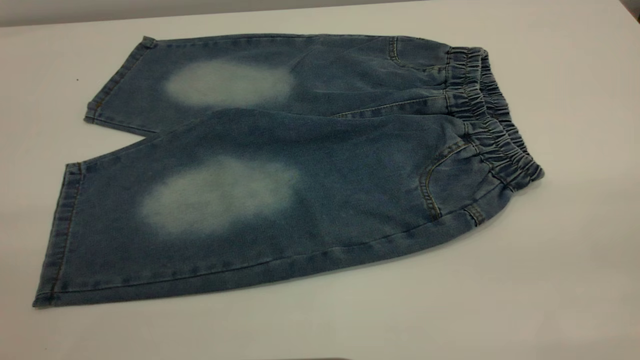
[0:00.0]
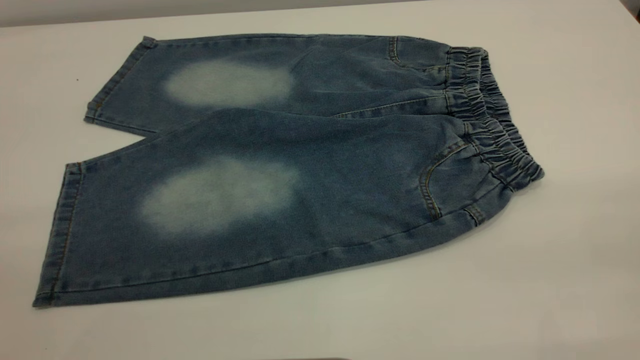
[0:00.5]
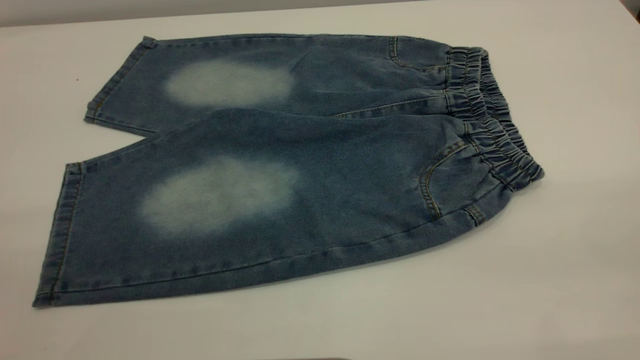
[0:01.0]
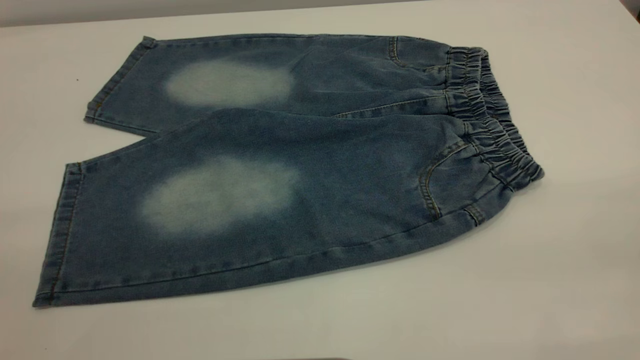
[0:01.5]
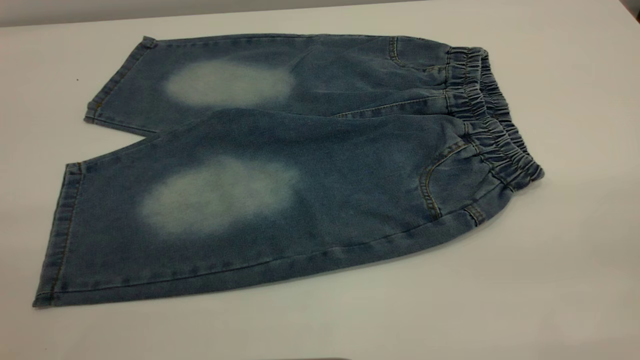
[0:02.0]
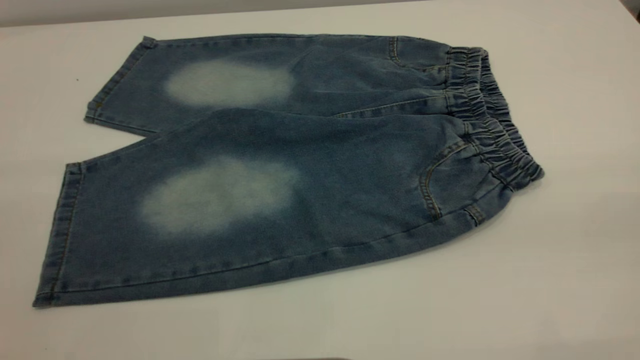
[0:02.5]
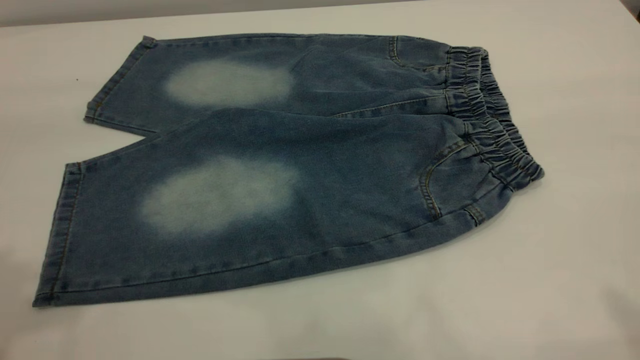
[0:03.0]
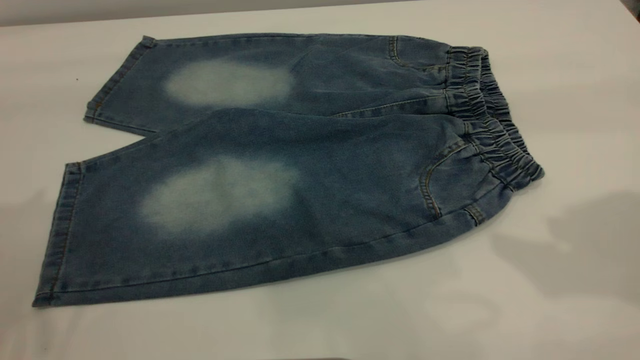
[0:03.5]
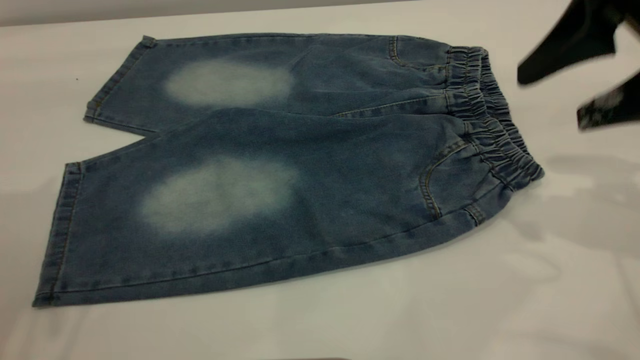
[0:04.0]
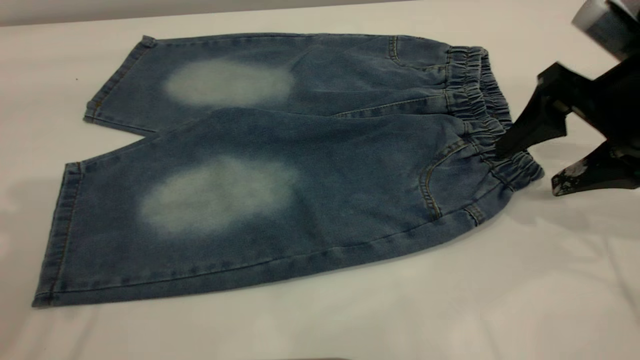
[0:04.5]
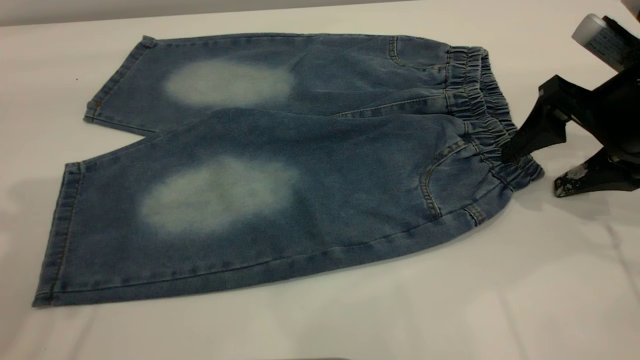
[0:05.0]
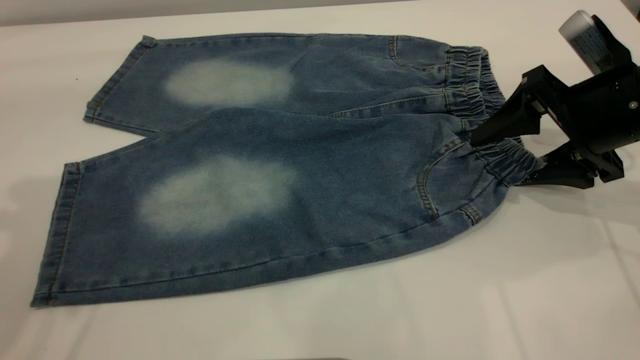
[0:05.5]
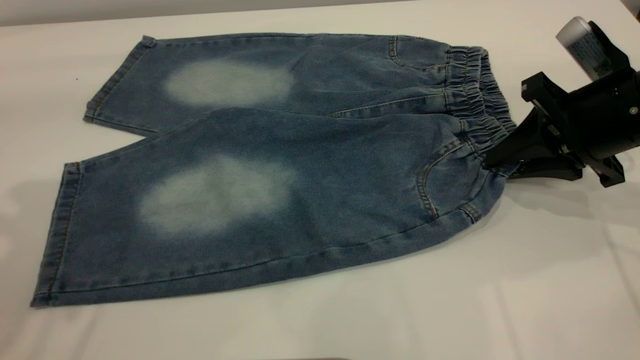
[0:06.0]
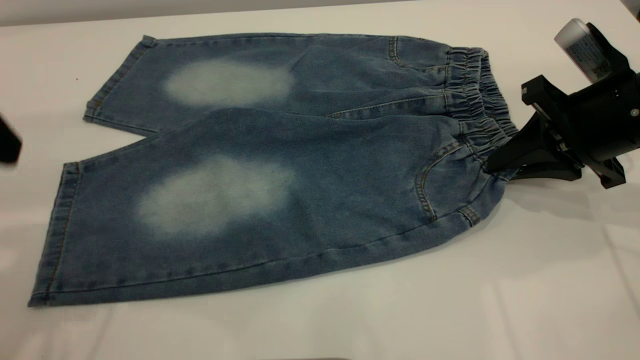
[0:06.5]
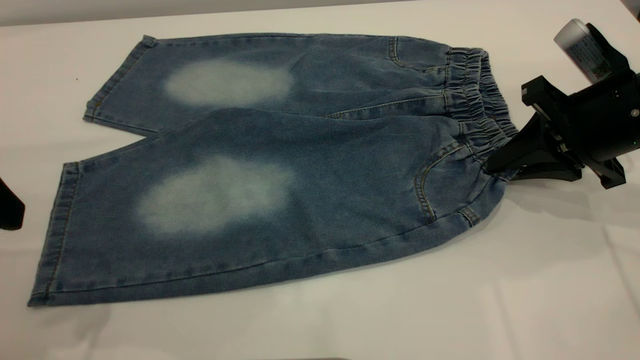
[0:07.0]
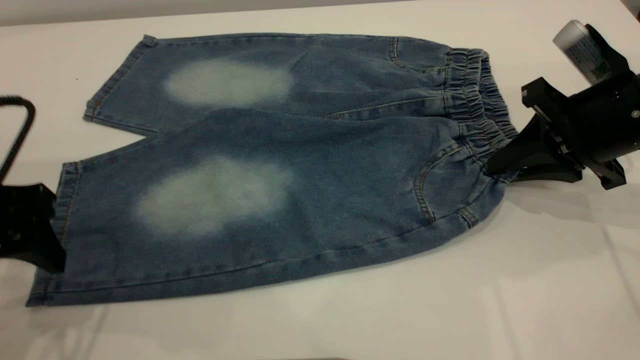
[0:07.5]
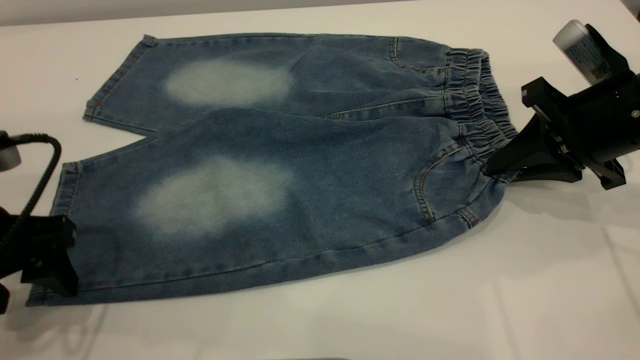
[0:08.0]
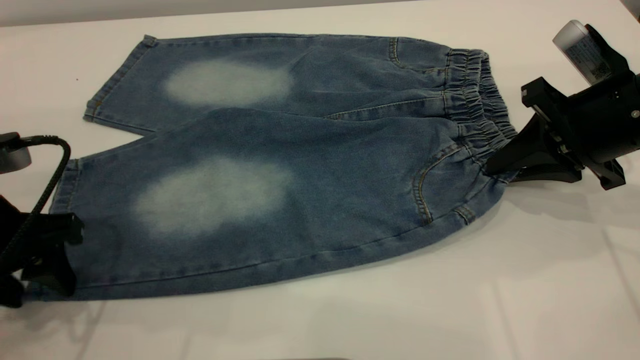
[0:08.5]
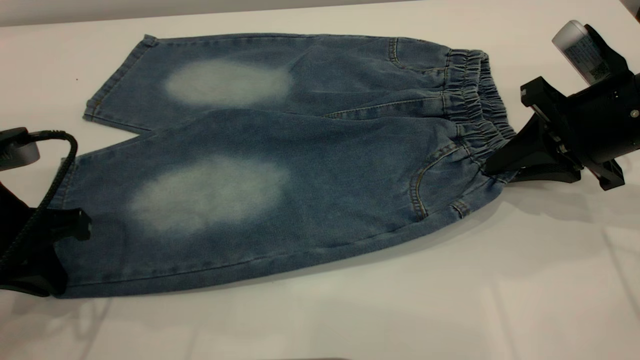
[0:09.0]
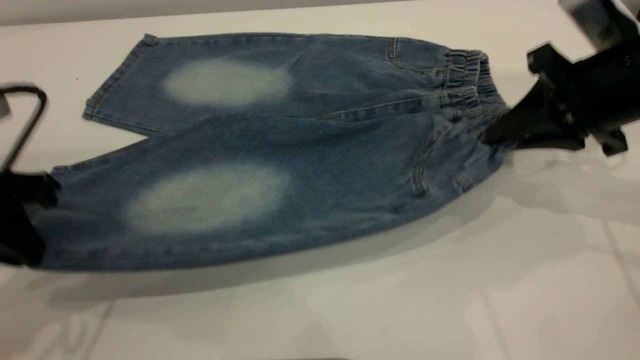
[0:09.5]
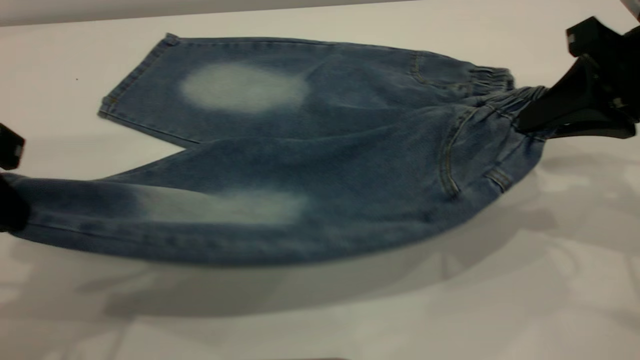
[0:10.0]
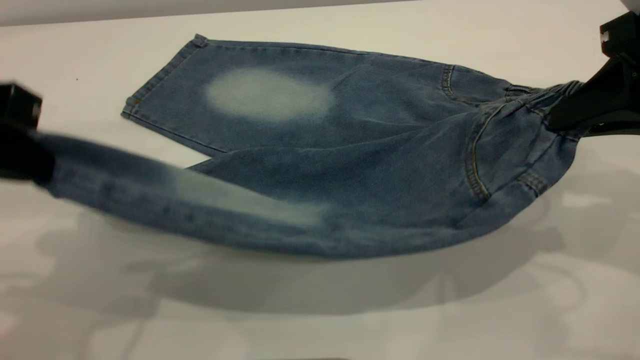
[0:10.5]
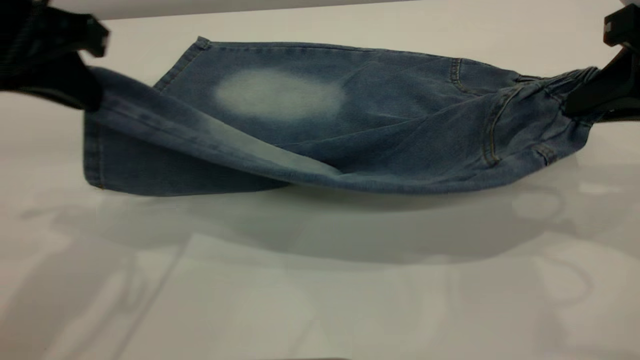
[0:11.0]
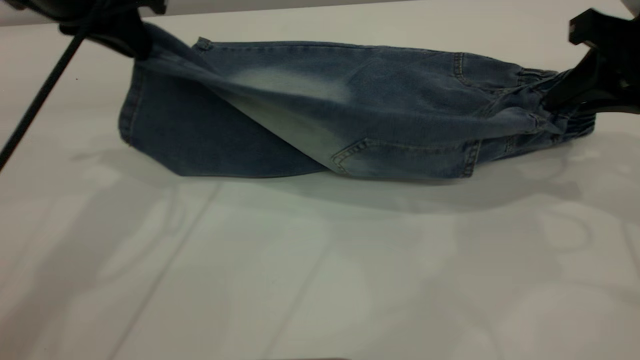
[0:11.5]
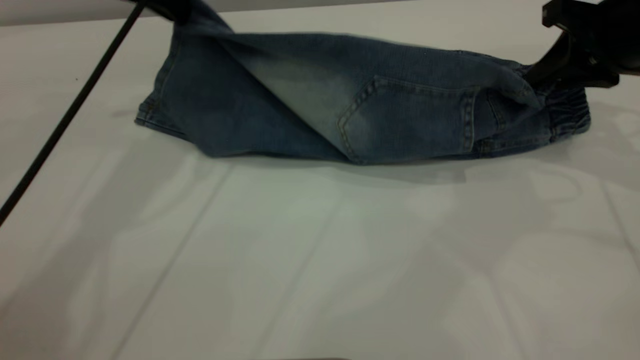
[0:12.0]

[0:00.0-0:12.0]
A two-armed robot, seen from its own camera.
0:00.0 to 0:02.0: The two grippers keep their place.
0:02.0 to 0:04.0: The right gripper heads forward and downward, covering approximately 30 cm.
0:04.0 to 0:06.0: The right gripper travels downward by about 10 cm, and closes.
0:06.0 to 0:08.0: The left gripper heads downward, covering some 20 cm.
0:08.0 to 0:10.0: The two grippers go approximately 10 cm upward. The left gripper closes.
0:10.0 to 0:12.0: The left gripper travels forward by some 25 cm. The right gripper shifts some 10 cm forward.

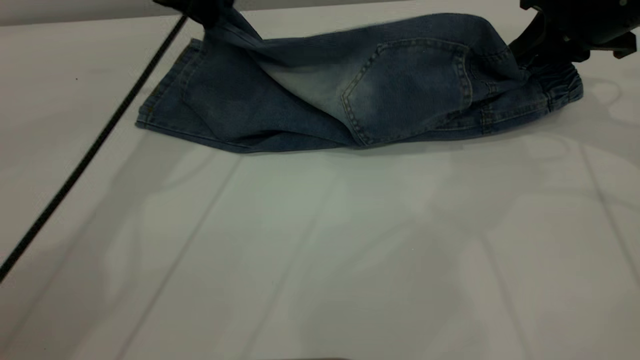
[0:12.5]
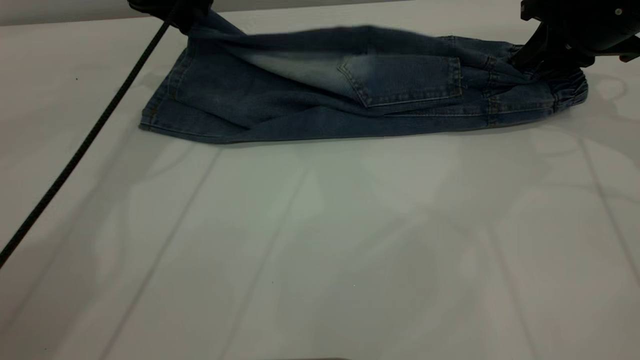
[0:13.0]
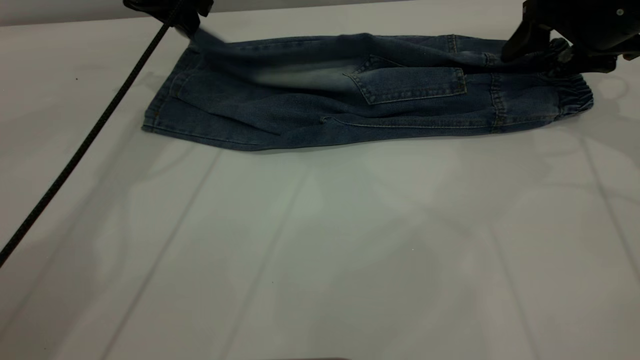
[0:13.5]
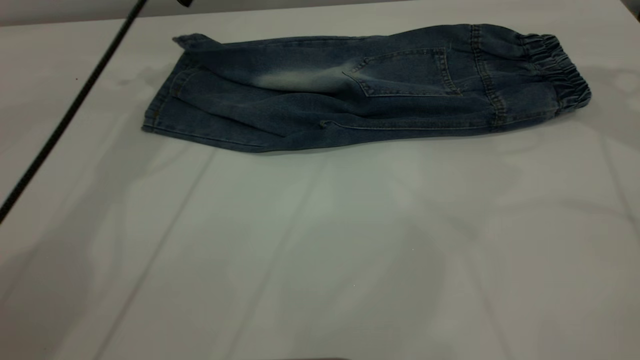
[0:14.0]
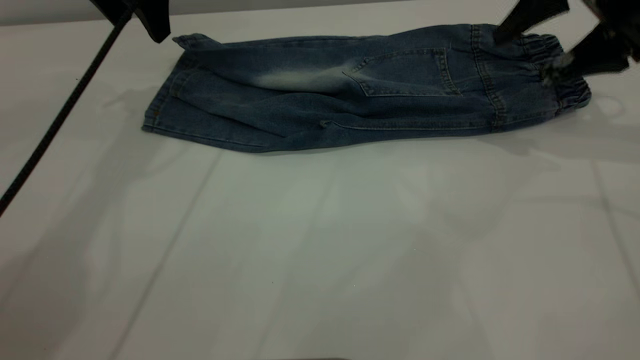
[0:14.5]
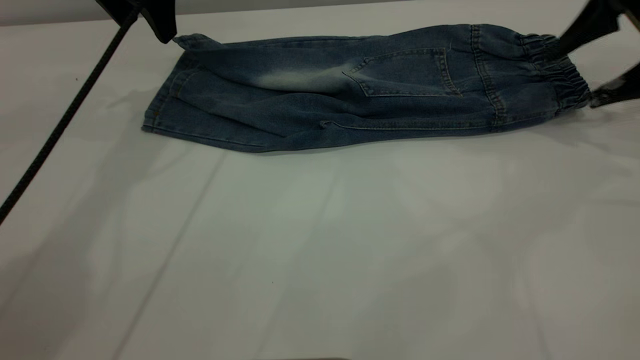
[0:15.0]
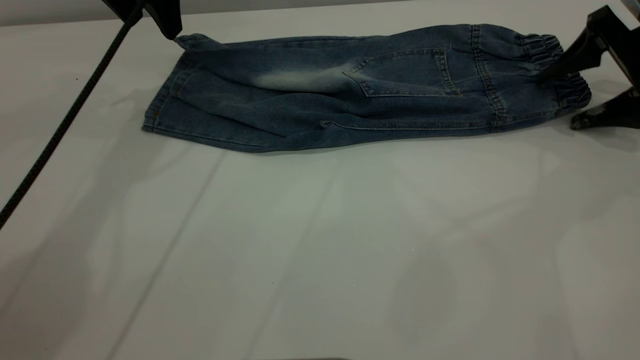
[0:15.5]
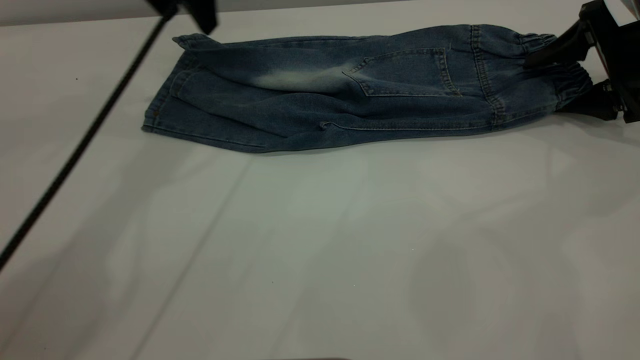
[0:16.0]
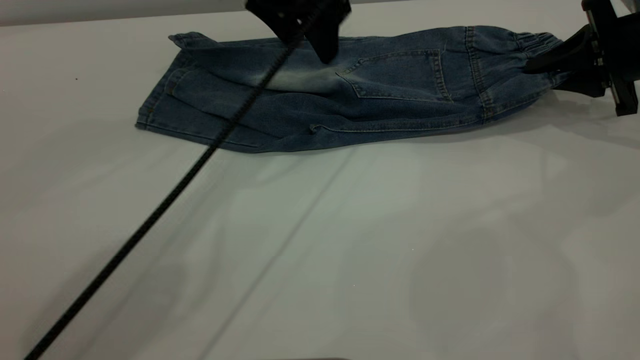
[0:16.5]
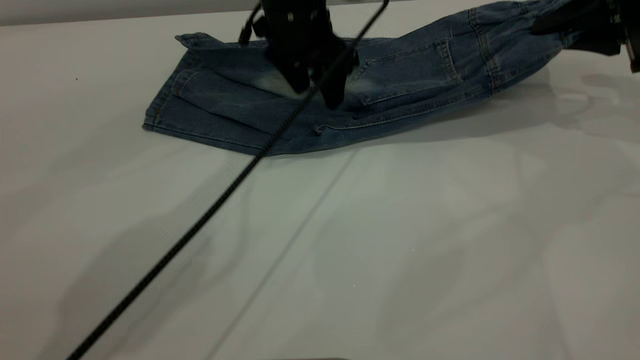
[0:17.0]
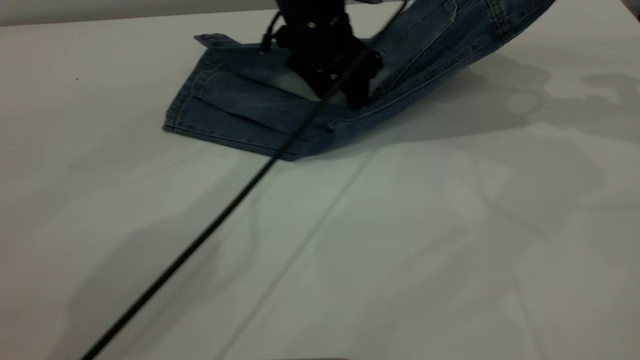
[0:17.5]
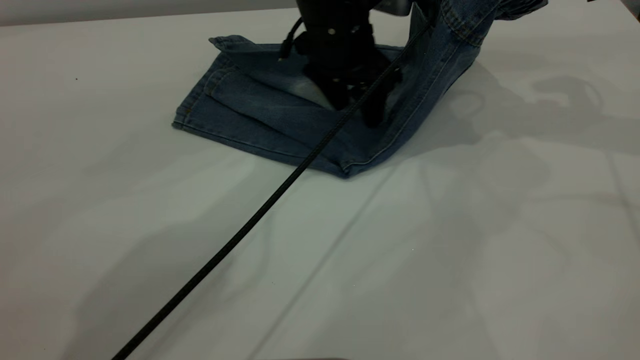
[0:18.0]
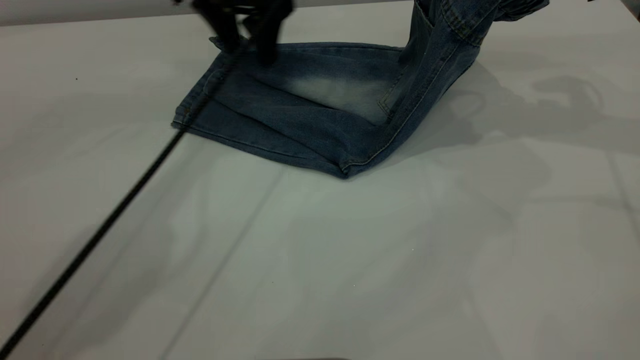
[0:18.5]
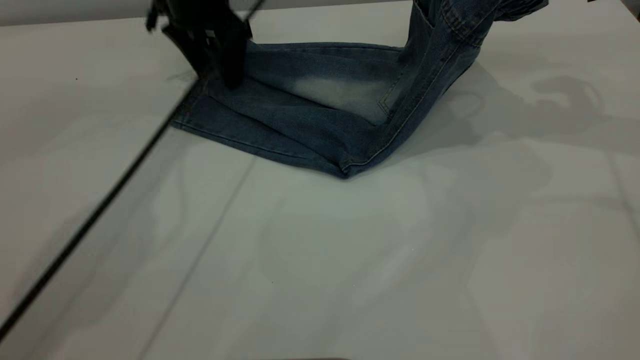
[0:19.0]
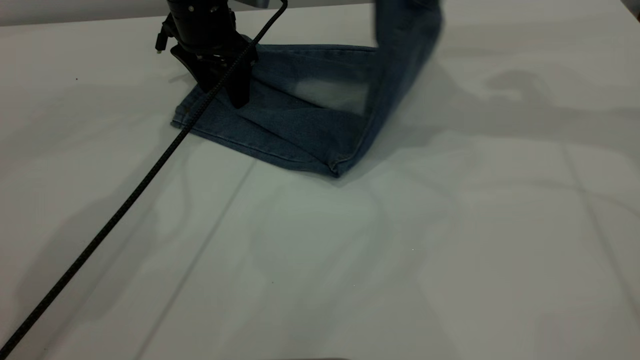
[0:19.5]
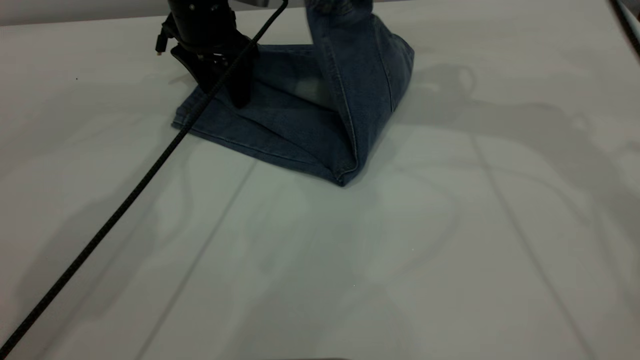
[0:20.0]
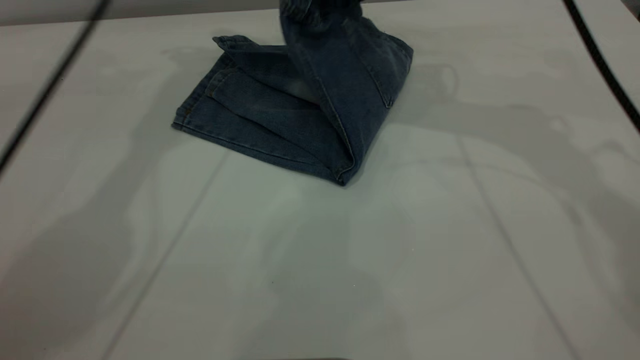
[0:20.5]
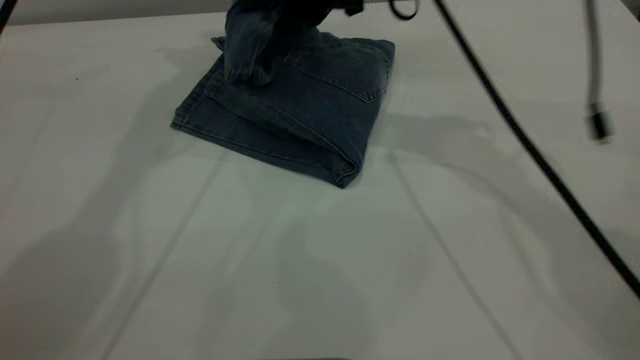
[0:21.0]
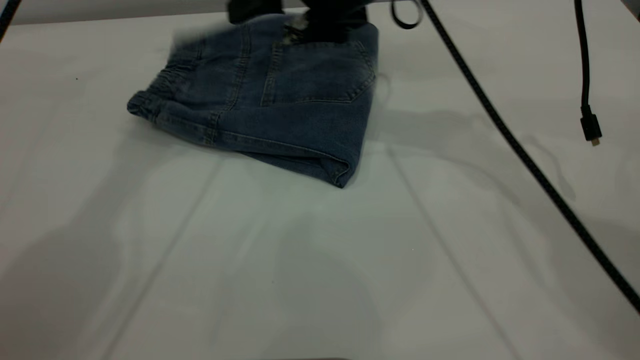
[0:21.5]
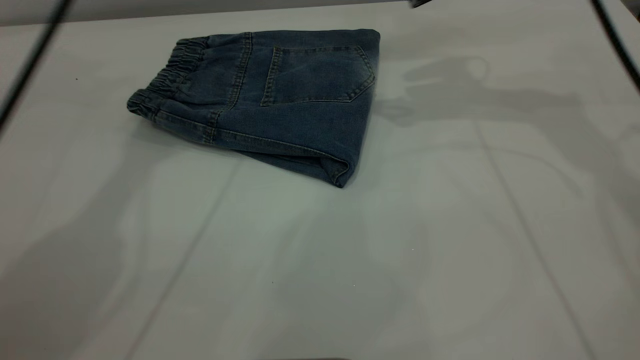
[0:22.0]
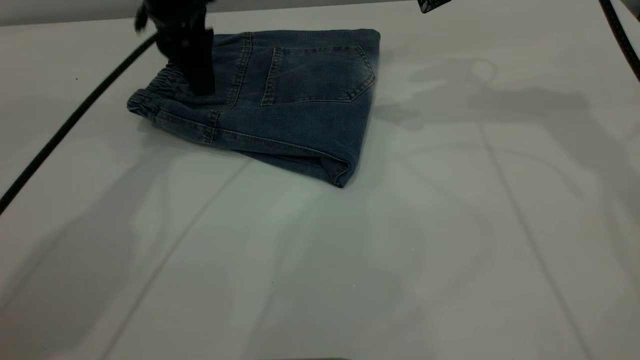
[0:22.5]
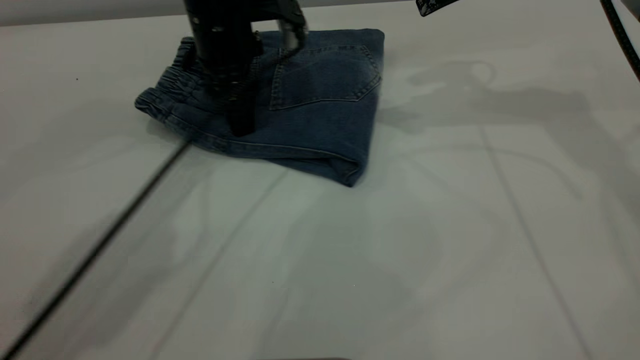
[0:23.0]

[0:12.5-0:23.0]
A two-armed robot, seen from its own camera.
Step, 0:12.5 to 0:15.5: Fold the bottom of the pants upward.
Step, 0:16.0 to 0:21.5: Fold your pants from right to left.
0:12.5 to 0:14.5: The right gripper moves approximately 10 cm upward and comes back, and opens. Meanwhile the left gripper ends up about 5 cm from where it was, and opens up.
0:14.5 to 0:16.5: The left gripper heads to the right, covering some 15 cm. The right gripper moves downward and to the right, about 10 cm, and closes up.
0:16.5 to 0:19.0: The left gripper travels to the left, forward and downward by some 15 cm; the right gripper is displaced upward and to the left by approximately 15 cm.
0:19.0 to 0:21.0: The left gripper moves upward, some 25 cm; the right gripper is displaced to the left by some 25 cm.
0:21.0 to 0:23.0: The right gripper heads to the right, covering roughly 15 cm, and opens its fingers, while the left gripper travels downward by approximately 25 cm.
